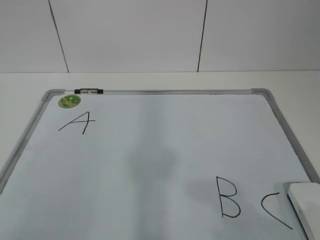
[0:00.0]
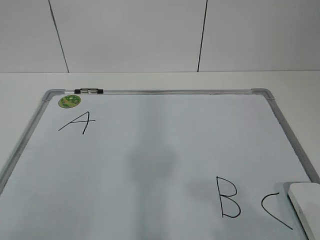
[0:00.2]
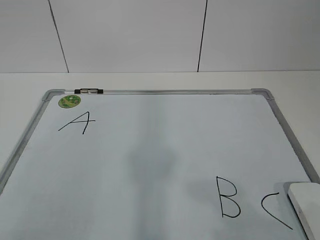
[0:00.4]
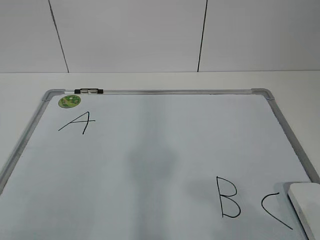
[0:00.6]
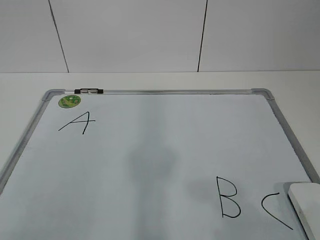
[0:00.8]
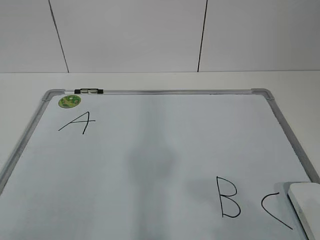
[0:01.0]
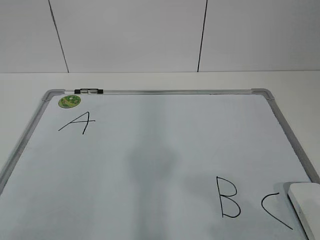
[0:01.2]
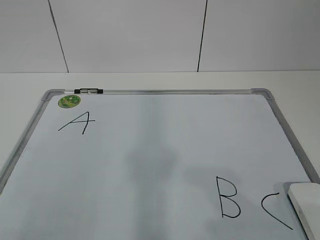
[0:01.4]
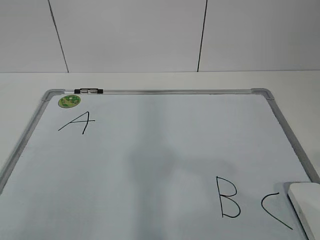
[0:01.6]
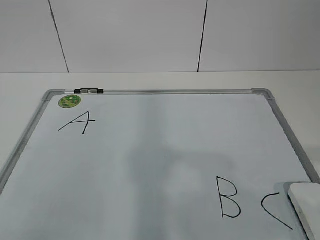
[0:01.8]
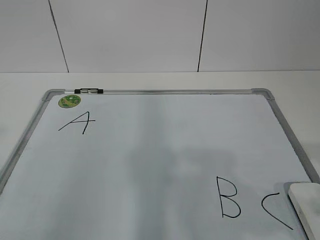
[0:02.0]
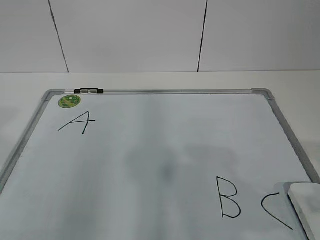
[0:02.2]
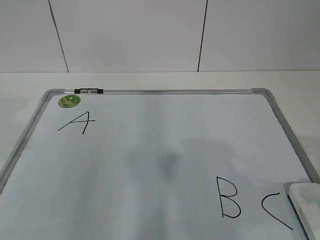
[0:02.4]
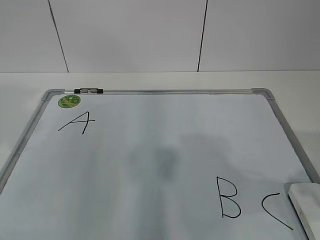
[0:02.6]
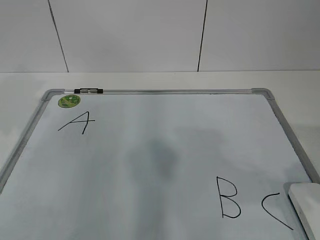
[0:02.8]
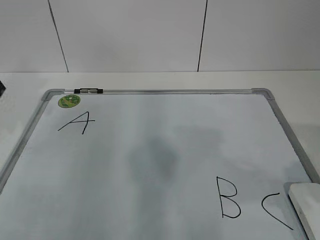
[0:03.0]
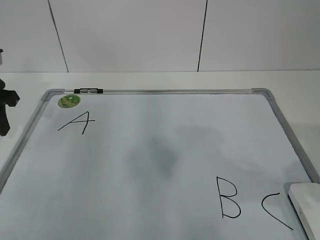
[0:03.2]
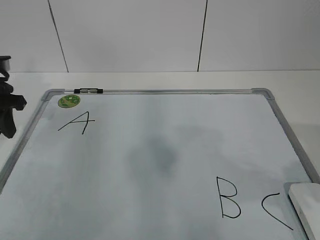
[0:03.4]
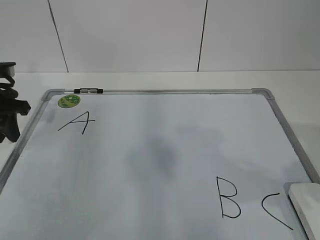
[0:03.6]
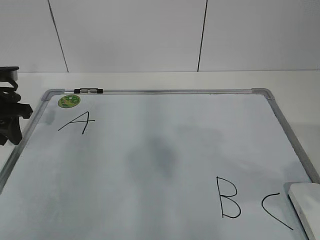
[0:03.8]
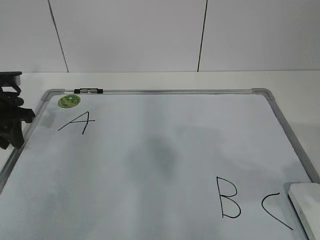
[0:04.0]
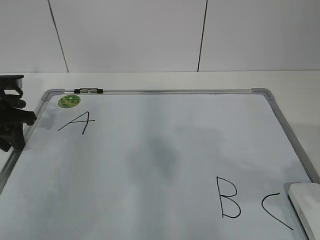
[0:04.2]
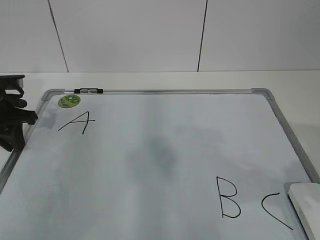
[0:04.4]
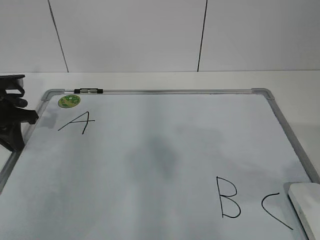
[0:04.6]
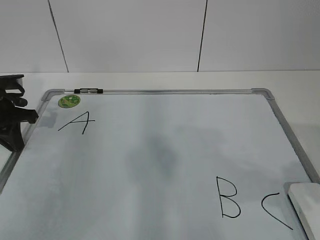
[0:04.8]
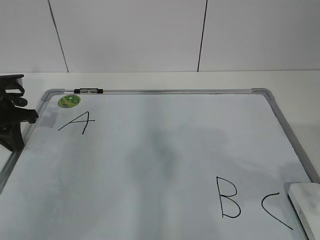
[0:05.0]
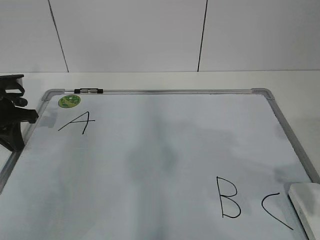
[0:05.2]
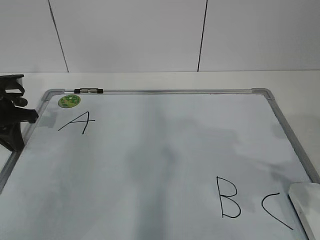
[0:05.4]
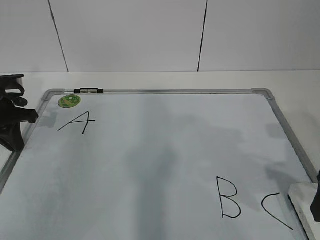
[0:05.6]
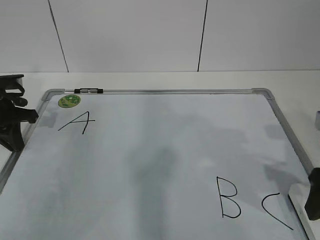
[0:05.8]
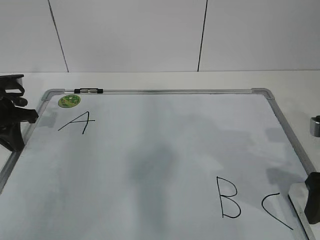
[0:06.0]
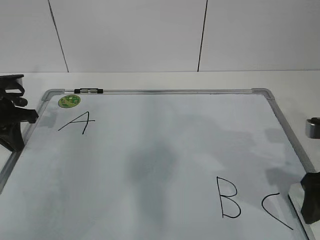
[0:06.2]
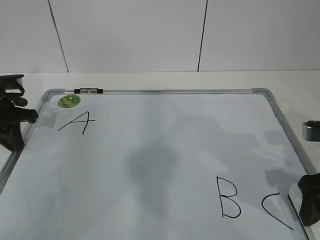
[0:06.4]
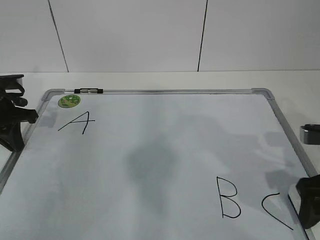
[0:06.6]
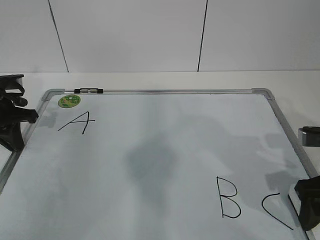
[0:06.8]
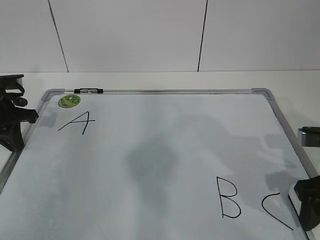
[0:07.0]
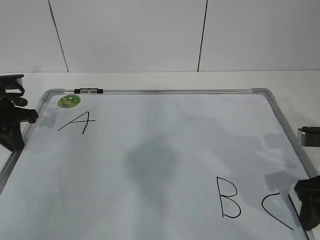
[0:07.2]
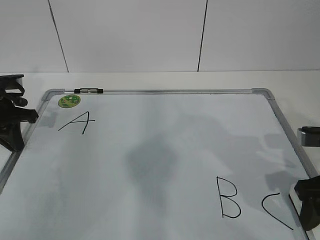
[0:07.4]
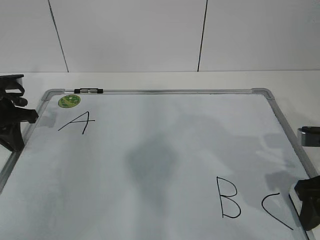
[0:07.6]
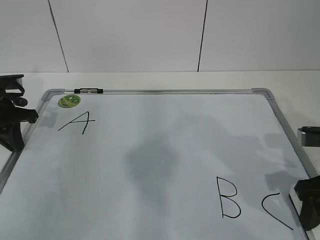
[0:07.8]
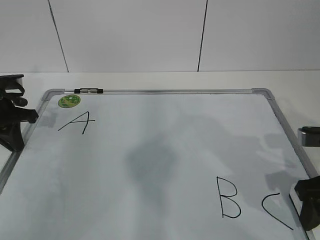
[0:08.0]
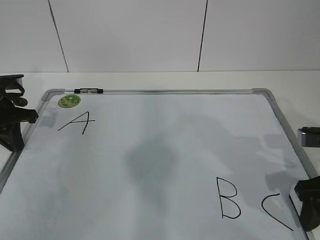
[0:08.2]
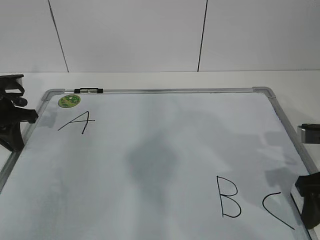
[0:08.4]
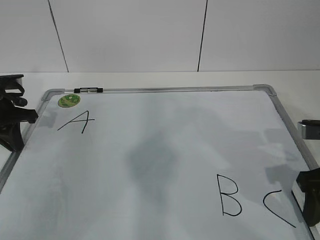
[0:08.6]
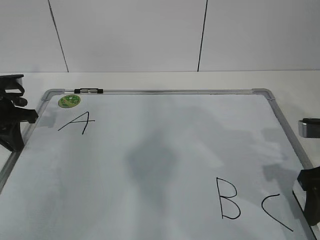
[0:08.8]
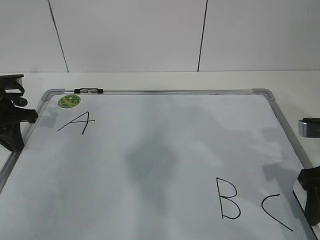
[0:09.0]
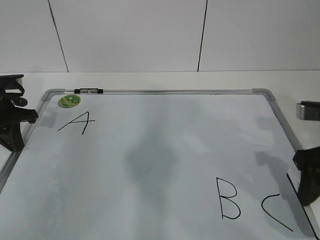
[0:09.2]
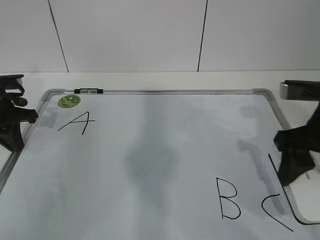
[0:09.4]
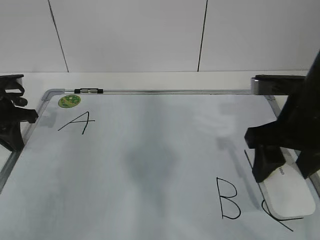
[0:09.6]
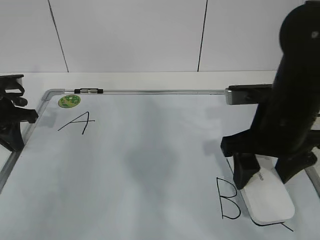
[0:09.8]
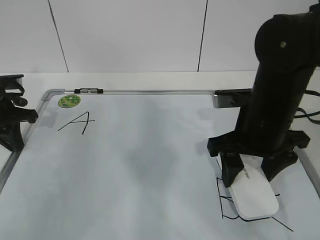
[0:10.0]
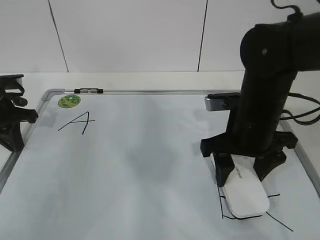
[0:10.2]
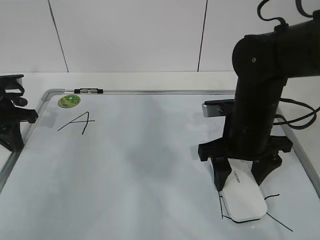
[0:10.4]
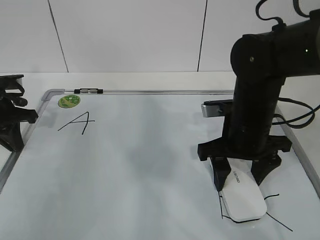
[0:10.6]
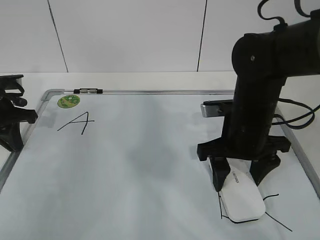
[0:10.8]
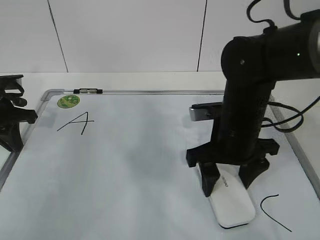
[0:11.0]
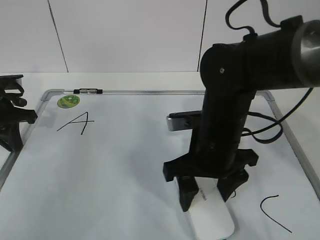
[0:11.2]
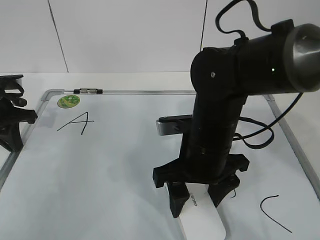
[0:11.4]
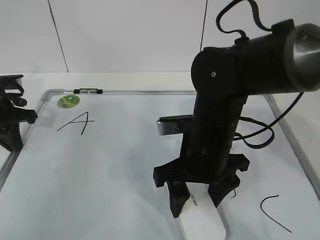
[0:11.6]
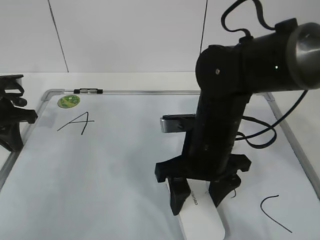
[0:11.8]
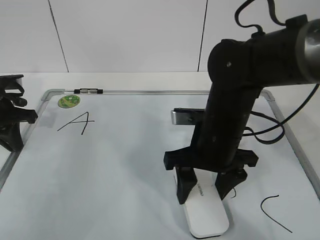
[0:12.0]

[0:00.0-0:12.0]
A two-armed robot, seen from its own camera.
Task of the whole recording: pick up the eraser on the blackboard and erase the letter "B".
Step, 0:00.0 to 0:03.6: Hold the drawing board steady with your left hand.
0:01.6 to 0:03.0: The right gripper heads forward, covering some 10 cm, while the left gripper moves forward, about 30 cm.
0:03.0 to 0:04.4: The left gripper heads downward and forward, covering about 10 cm.
0:04.4 to 0:06.0: The right gripper moves forward and downward, some 15 cm, and opens its fingers.
0:06.0 to 0:07.6: The right gripper closes.
0:07.6 to 0:09.0: The grippers move only a little.
0:09.0 to 0:10.4: The right gripper shifts approximately 15 cm to the left and forward.

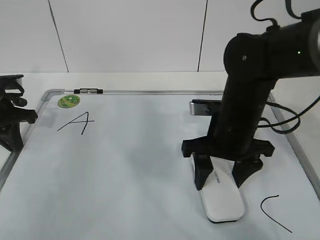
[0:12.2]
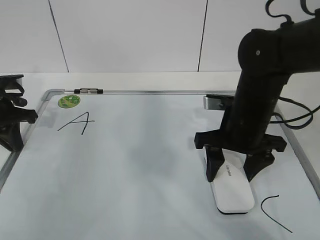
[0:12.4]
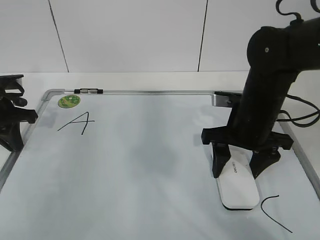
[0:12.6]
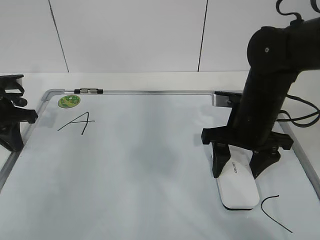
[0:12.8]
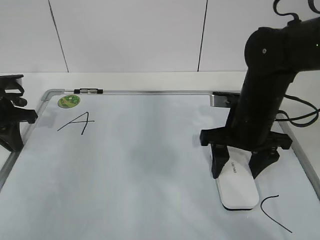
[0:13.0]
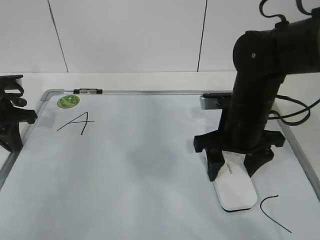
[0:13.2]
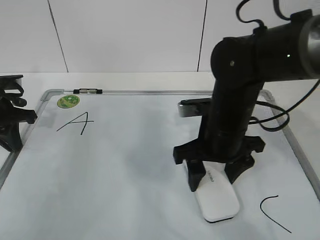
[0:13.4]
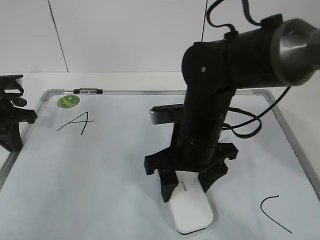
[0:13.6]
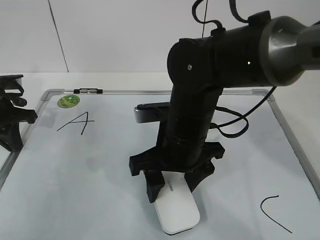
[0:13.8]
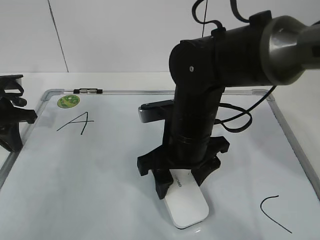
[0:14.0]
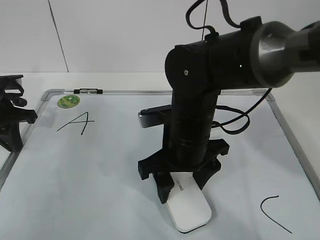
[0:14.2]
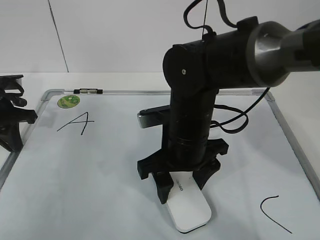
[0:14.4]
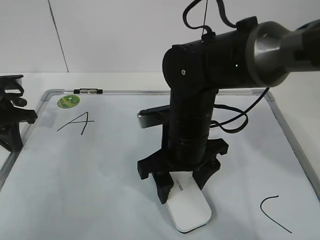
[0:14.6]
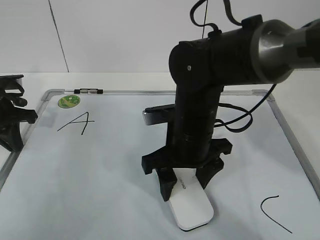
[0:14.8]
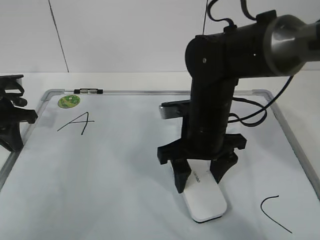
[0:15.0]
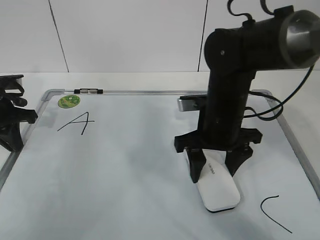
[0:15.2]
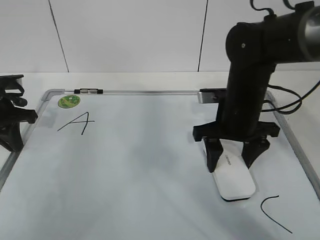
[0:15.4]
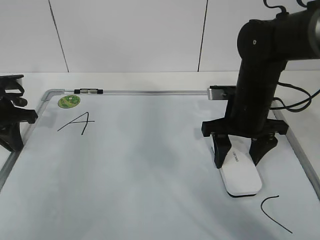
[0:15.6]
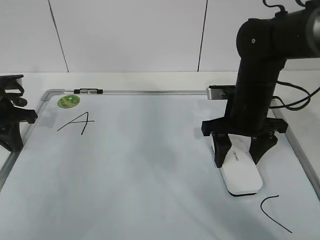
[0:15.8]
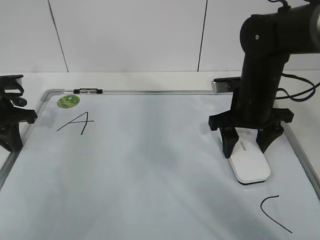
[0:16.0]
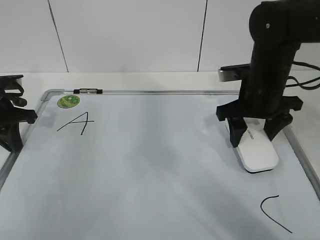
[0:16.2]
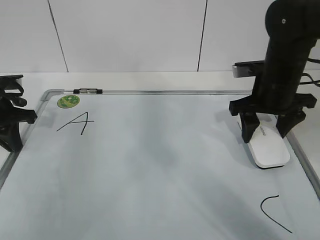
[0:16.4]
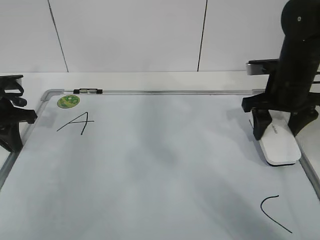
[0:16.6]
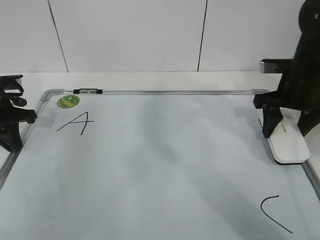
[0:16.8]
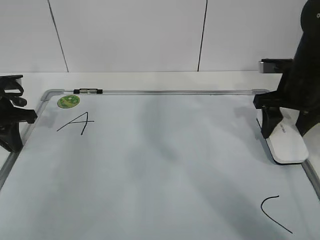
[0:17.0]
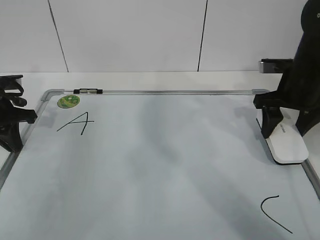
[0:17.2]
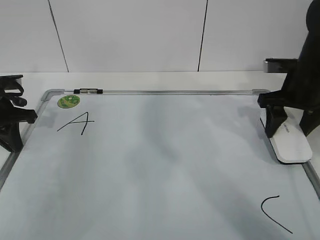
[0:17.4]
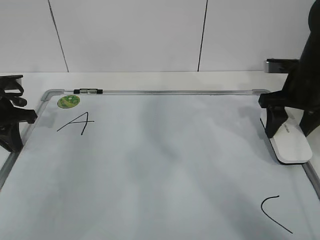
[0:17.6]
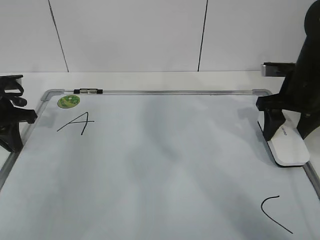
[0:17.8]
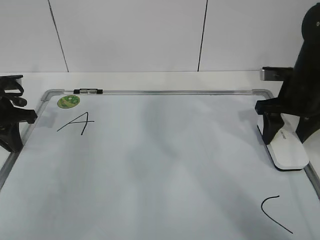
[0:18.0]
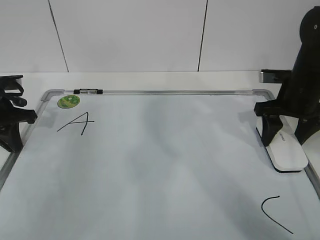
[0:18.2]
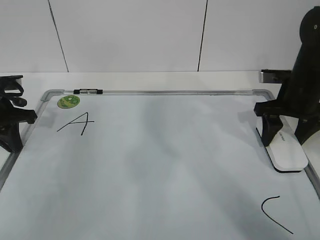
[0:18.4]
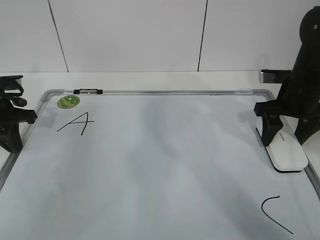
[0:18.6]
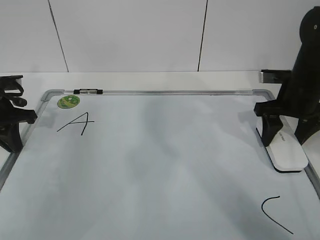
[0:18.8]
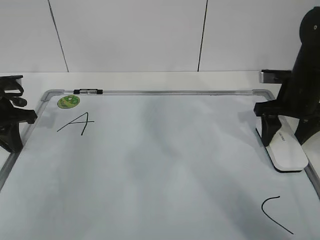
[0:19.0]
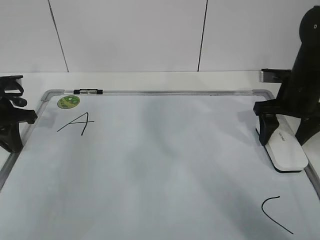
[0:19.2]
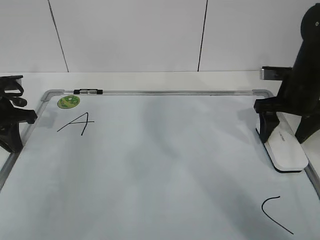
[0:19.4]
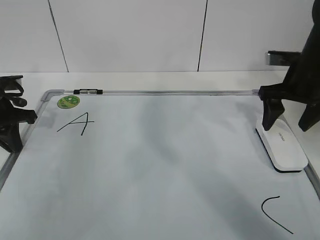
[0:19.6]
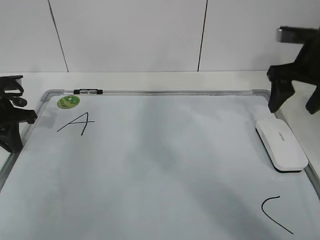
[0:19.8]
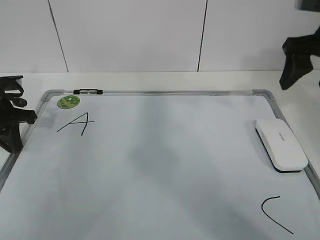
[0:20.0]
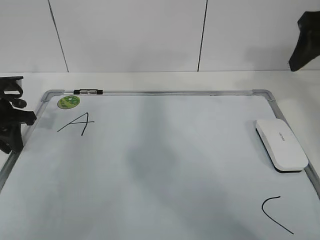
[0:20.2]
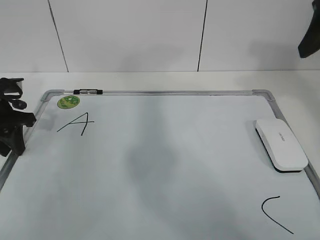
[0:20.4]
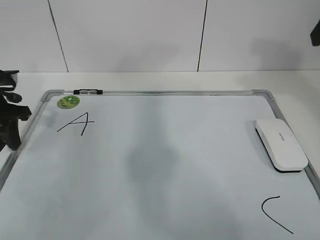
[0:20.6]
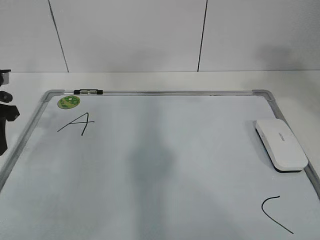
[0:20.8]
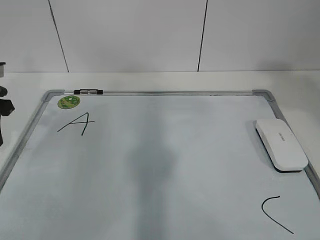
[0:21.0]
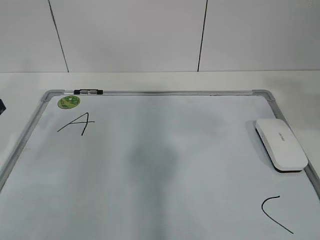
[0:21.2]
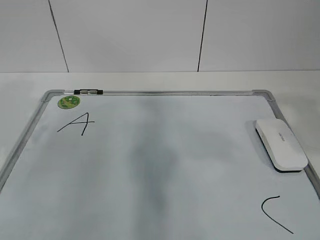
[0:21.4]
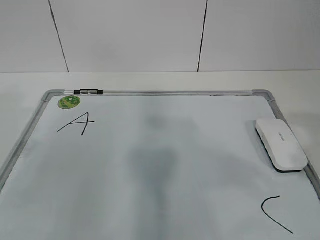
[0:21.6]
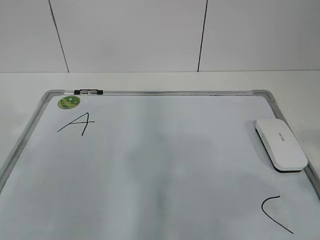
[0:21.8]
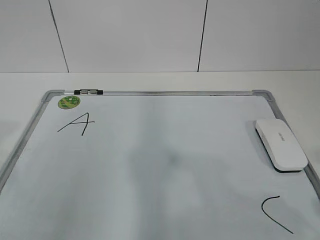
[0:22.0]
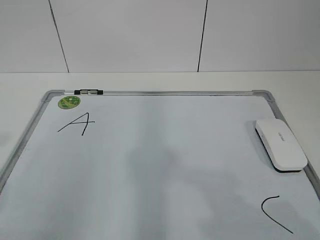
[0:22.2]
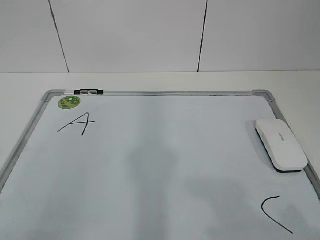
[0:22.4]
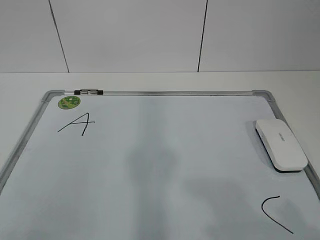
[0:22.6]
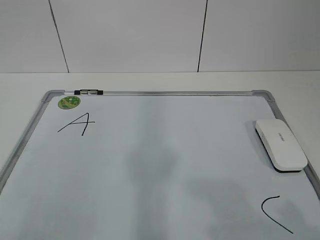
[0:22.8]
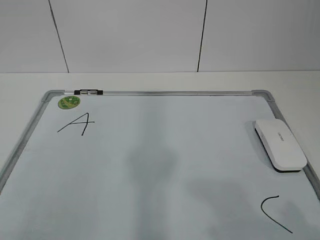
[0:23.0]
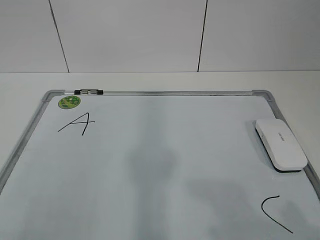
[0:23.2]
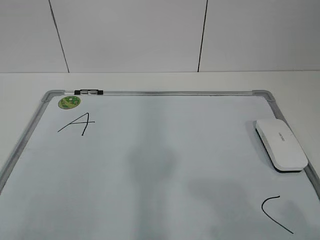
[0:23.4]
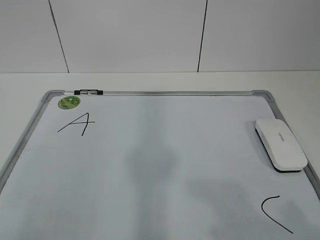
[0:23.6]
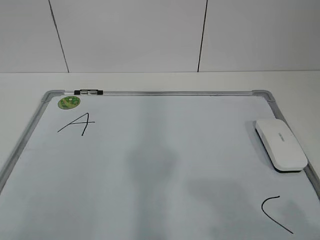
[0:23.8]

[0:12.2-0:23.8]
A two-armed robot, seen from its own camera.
Task of the whole recording: pick up the eraser on the blackboard and erase the letter "B".
Step, 0:13.4 to 0:15.8: Put down the eraser with your right hand.
0:12.2 to 0:13.6: The right gripper goes roughly 5 cm to the left.
0:13.6 to 0:15.0: The grippers move only a little.
0:15.0 to 0:16.6: The right gripper travels to the right and forward by about 15 cm.
0:16.6 to 0:18.0: The grippers make only small movements.
0:18.0 to 0:19.4: The right gripper opens its fingers.
0:19.4 to 0:21.0: The left gripper moves upward, roughly 5 cm, and opens up. Meanwhile the right gripper moves upward and backward, about 30 cm, and closes its fingers.
0:21.0 to 0:22.4: The left gripper is displaced backward by about 30 cm. Meanwhile the right gripper is displaced backward and downward by approximately 25 cm.
